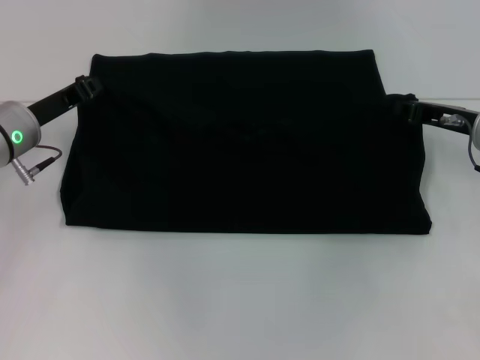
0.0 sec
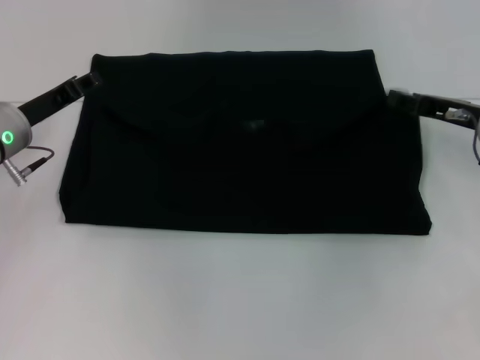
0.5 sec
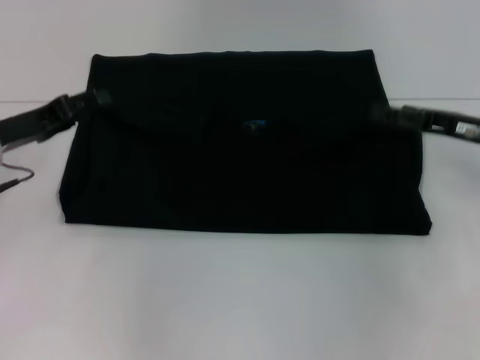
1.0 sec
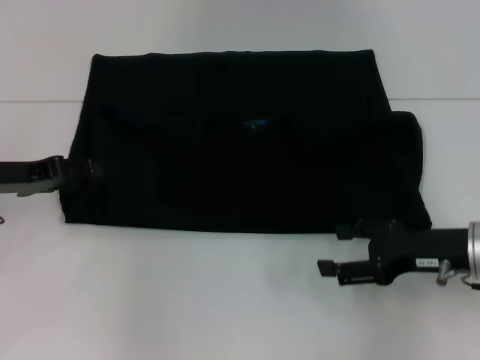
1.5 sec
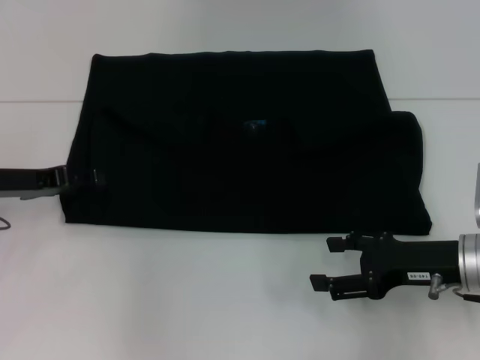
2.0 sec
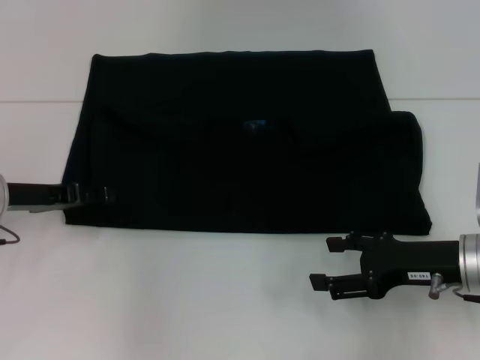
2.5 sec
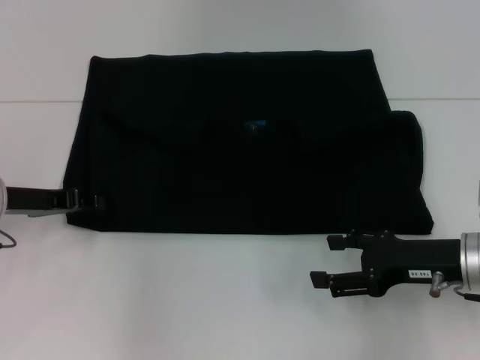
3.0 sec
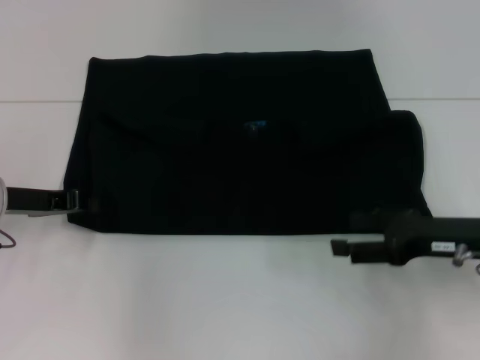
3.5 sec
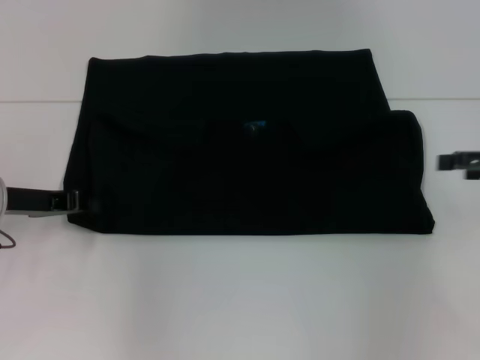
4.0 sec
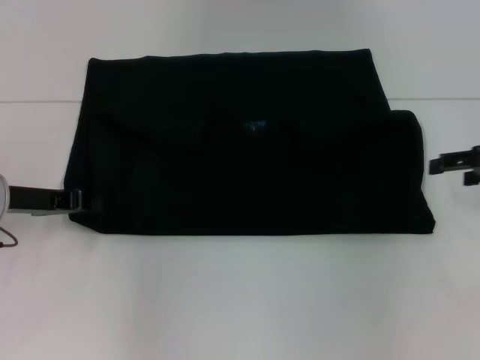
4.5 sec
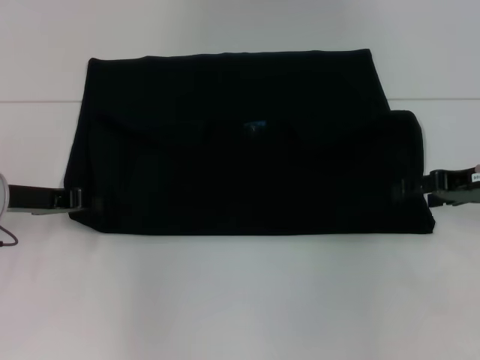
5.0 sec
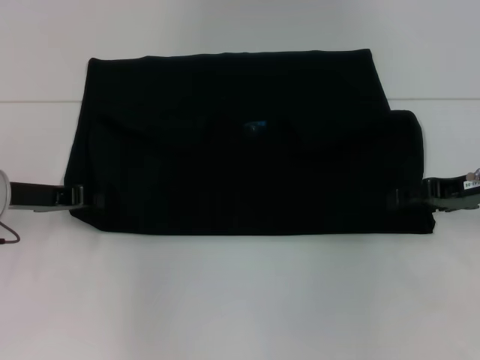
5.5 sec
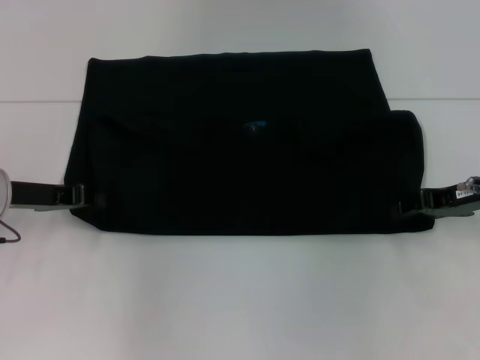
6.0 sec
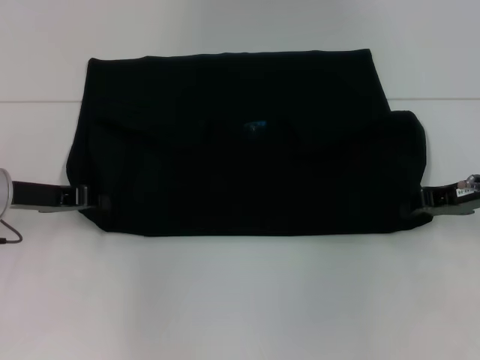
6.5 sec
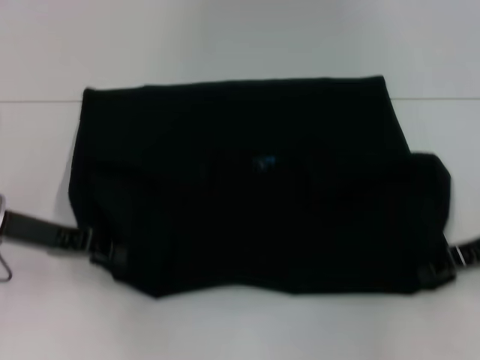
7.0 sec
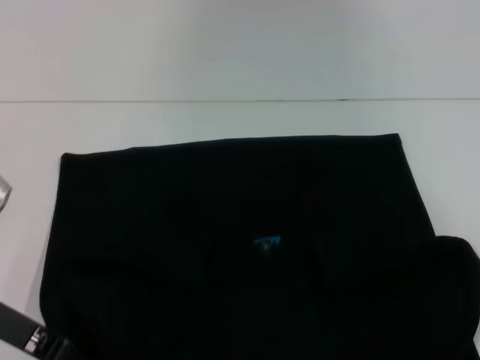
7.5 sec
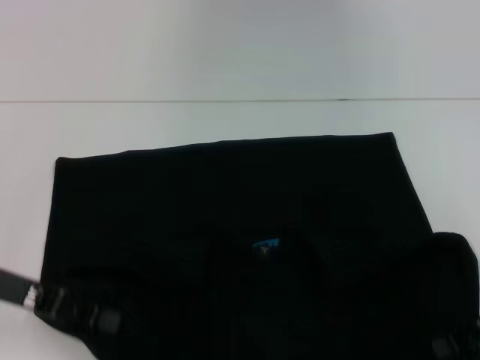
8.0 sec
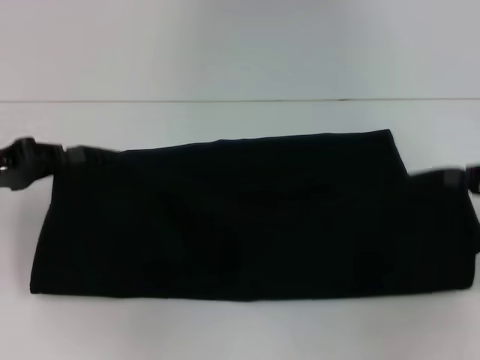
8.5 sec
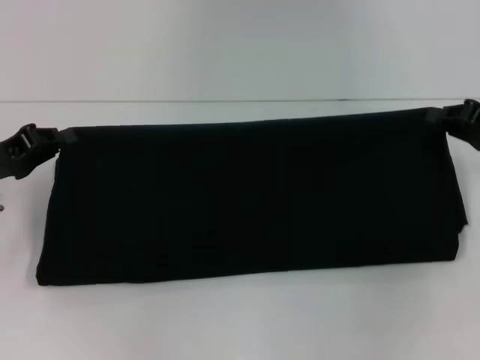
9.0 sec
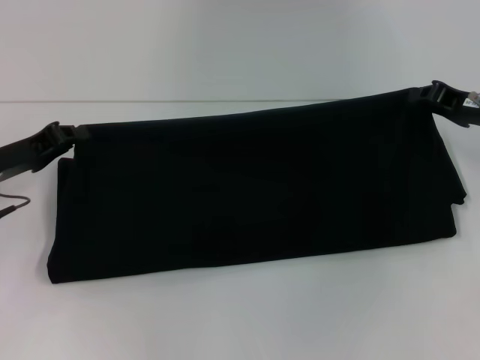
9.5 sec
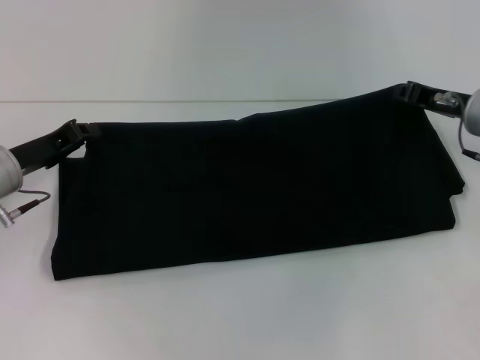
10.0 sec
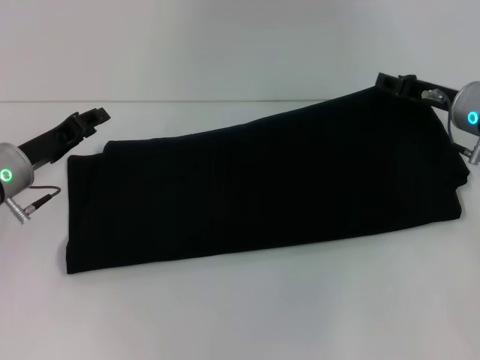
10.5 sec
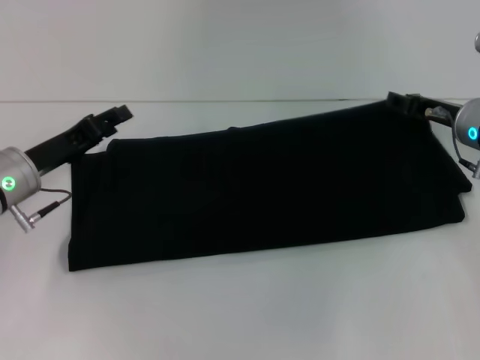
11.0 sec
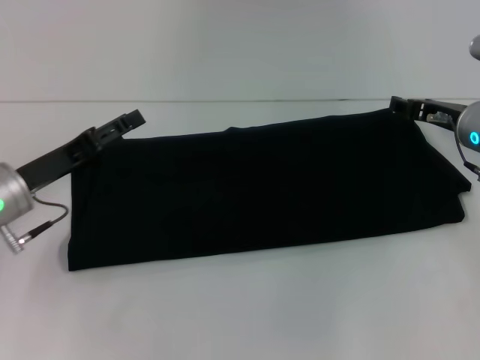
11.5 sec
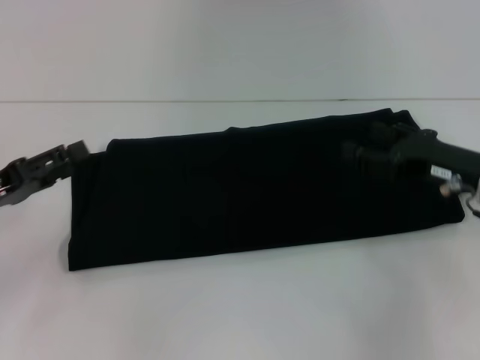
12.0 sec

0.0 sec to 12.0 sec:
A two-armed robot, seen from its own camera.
Step, 1.0 sec to 7.5 sec: Pull the clothes with your left hand.
Step, 1.0 sec to 7.5 sec: Pull the clothes with your right hand.
Step, 8.0 sec to 11.0 sec: Fold the clothes with your right hand.
0.0 sec to 2.0 sec: The left gripper moves some 5 cm, and opens up. Meanwhile the right gripper is displaced backward by about 10 cm, and opens.
2.0 sec to 4.0 sec: The right gripper shifts some 15 cm to the right, upward and forward. The left gripper closes.
4.0 sec to 6.0 sec: The right gripper goes some 10 cm to the left.
6.0 sec to 8.0 sec: The grippers both shift backward by some 10 cm. The right gripper closes.
8.0 sec to 10.0 sec: The left gripper travels forward by roughly 10 cm, while the right gripper goes about 15 cm forward and to the left.
10.0 sec to 12.0 sec: Both grippers travel together backward, approximately 10 cm. The left gripper opens up. The right gripper opens up.

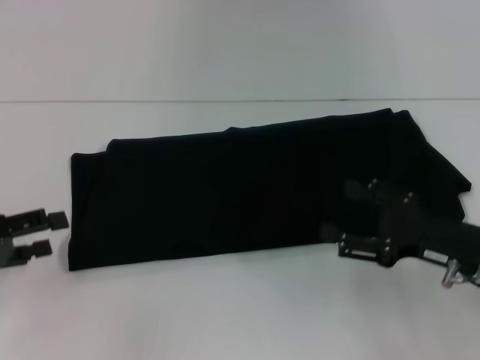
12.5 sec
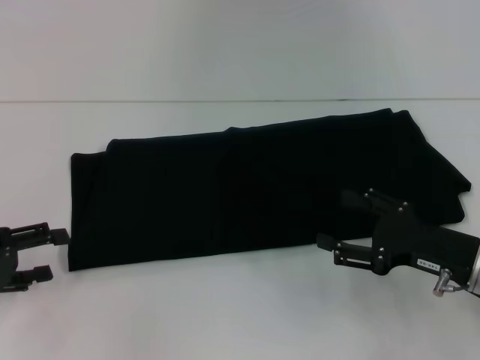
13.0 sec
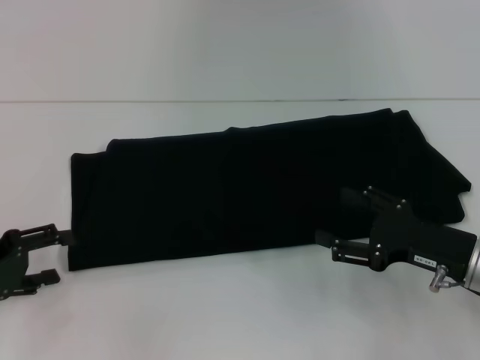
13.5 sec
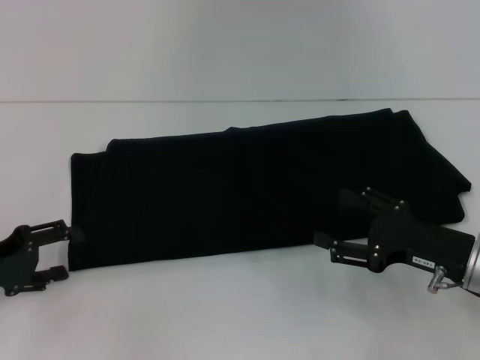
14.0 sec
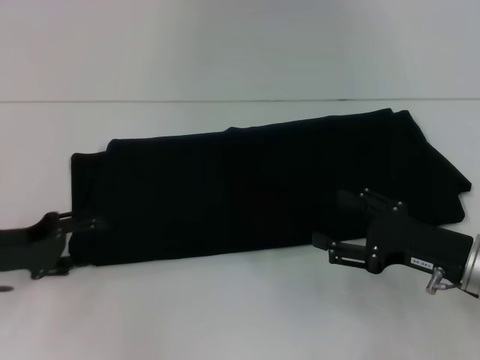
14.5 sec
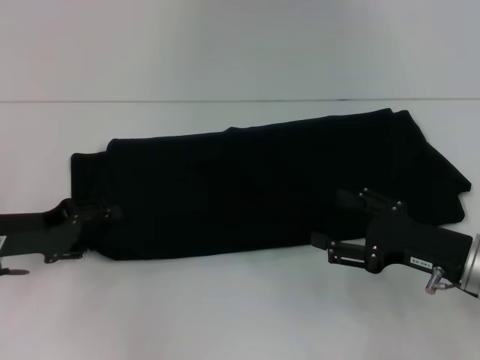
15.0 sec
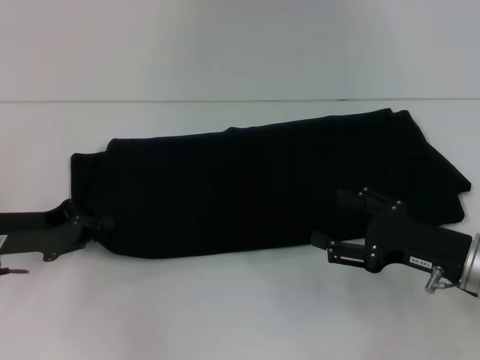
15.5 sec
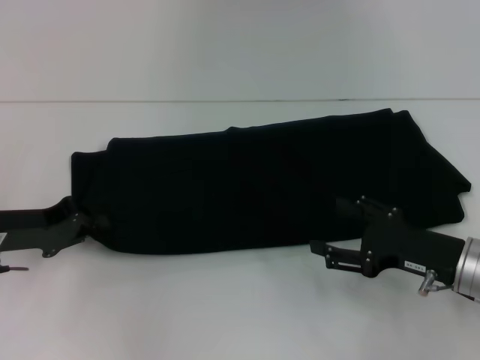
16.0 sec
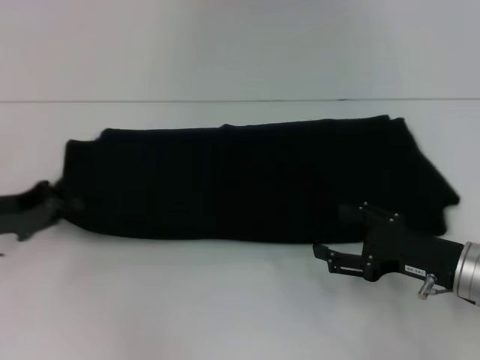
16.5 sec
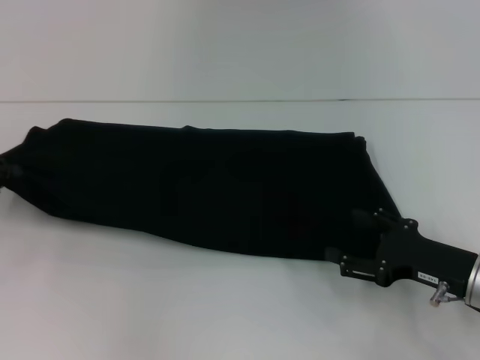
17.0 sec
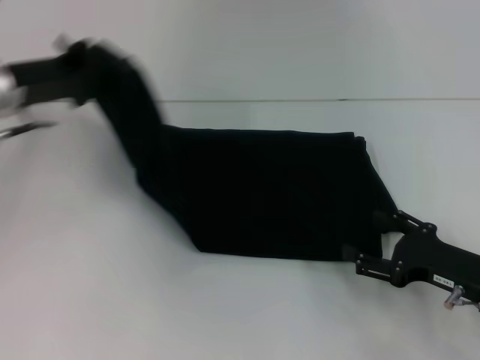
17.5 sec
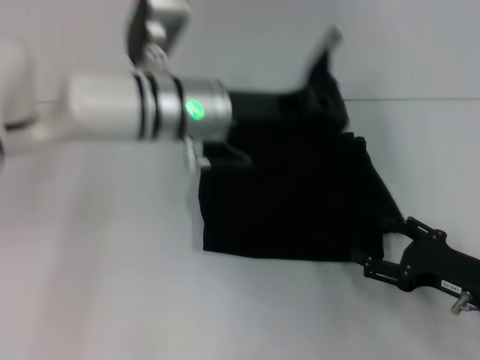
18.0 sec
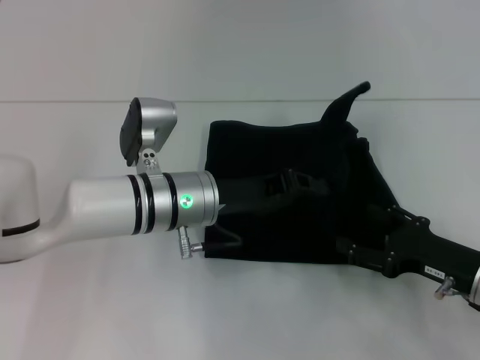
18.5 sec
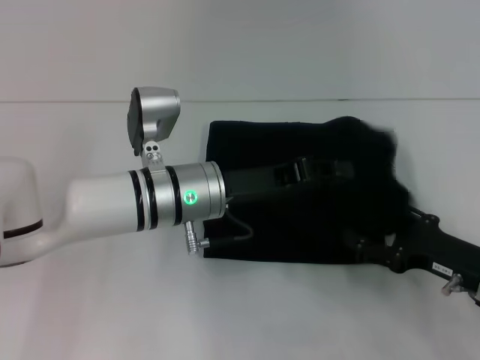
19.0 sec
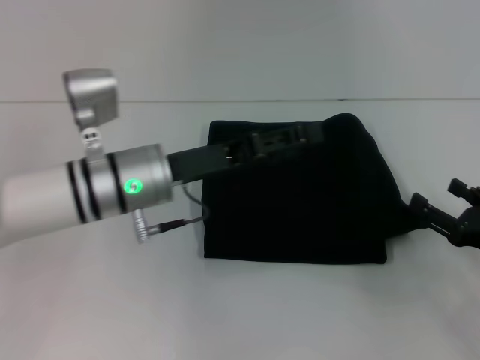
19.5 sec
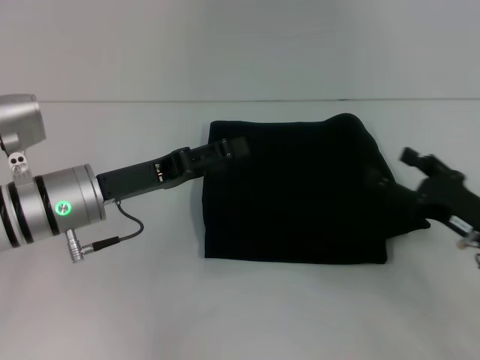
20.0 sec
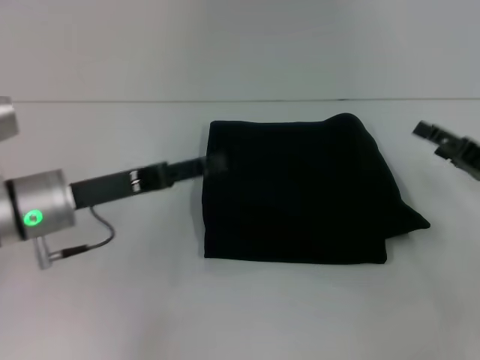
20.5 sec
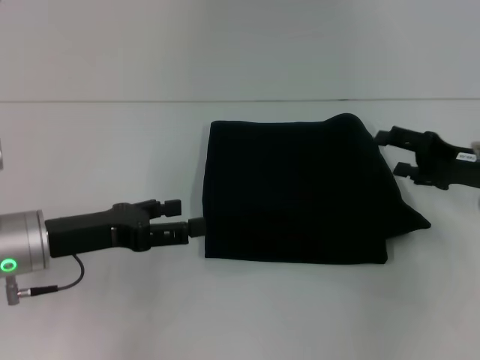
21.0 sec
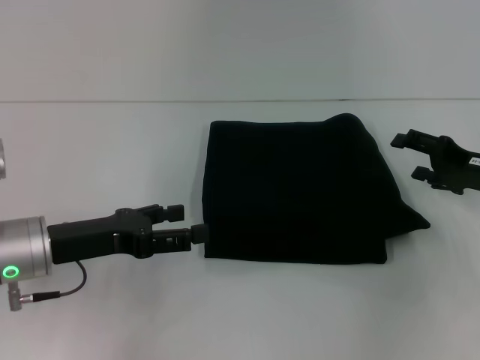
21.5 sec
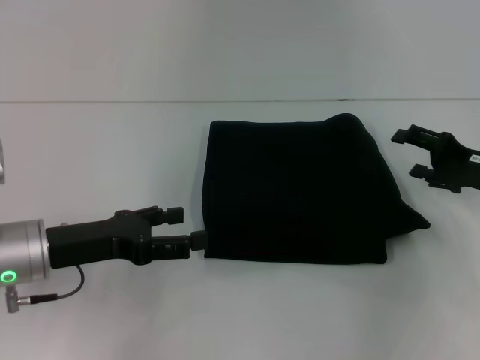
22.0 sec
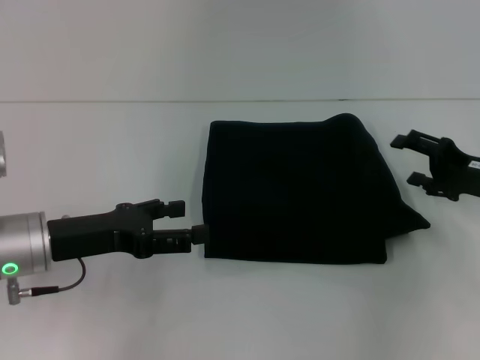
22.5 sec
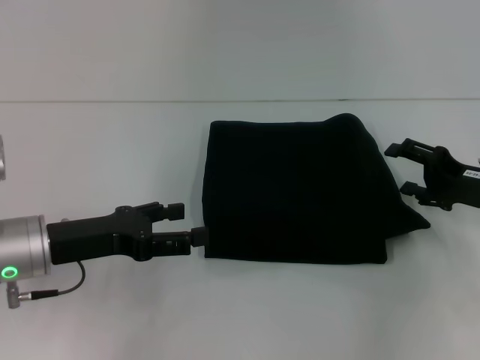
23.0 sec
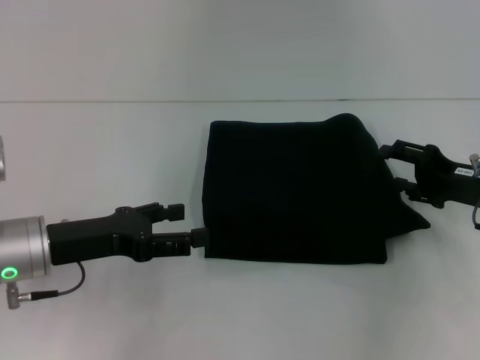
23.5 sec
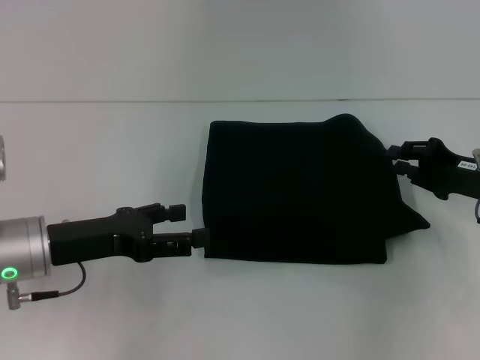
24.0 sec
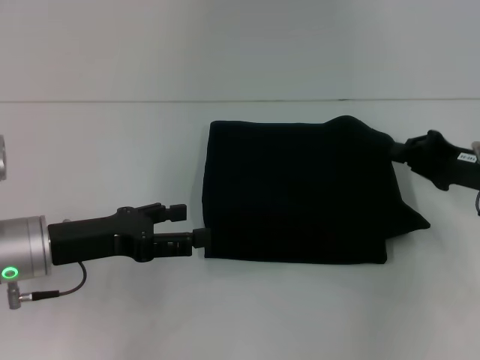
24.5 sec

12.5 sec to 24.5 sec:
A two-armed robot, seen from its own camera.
Step, 12.5 sec to 19.0 sec: Fold the clothes with your left hand.
12.5 sec to 14.5 sec: The left gripper changes place by some 5 cm.
14.5 sec to 16.5 sec: The left gripper closes.
16.5 sec to 18.5 sec: The left gripper travels to the right by about 25 cm.
18.5 sec to 20.5 sec: The right gripper is displaced forward and to the right by approximately 10 cm; the left gripper is displaced to the left by about 15 cm, and opens up.
22.5 sec to 24.5 sec: The right gripper closes up.

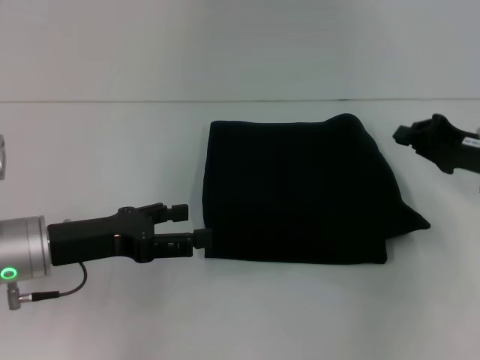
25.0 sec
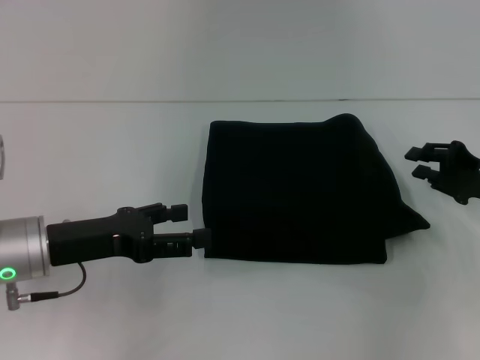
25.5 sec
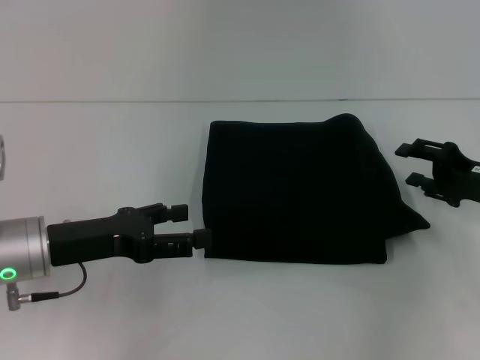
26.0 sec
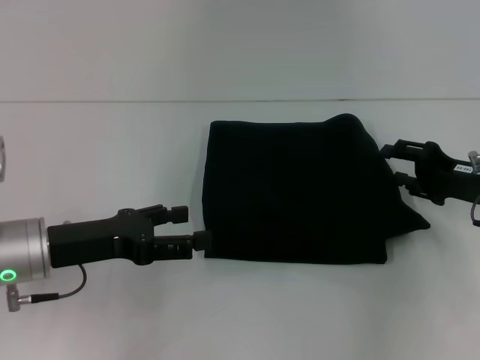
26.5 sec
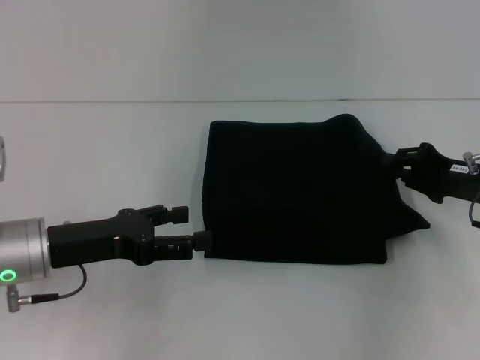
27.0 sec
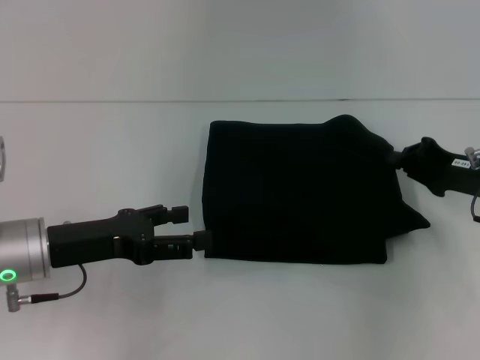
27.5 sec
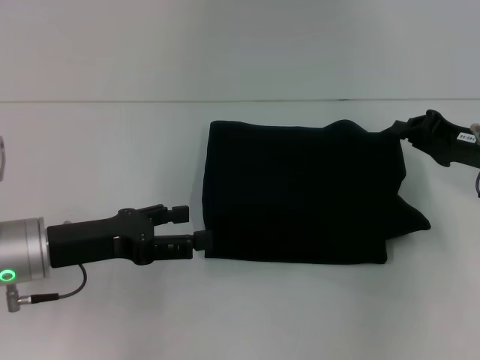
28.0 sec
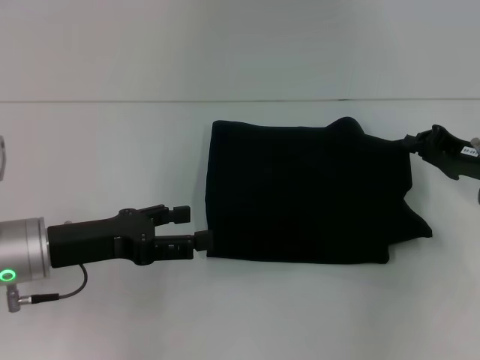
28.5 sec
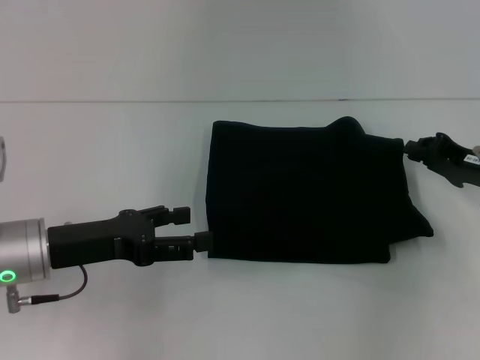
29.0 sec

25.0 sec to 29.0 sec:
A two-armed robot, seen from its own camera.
25.0 sec to 27.0 sec: The right gripper opens its fingers.
27.0 sec to 29.0 sec: The right gripper closes its fingers.
